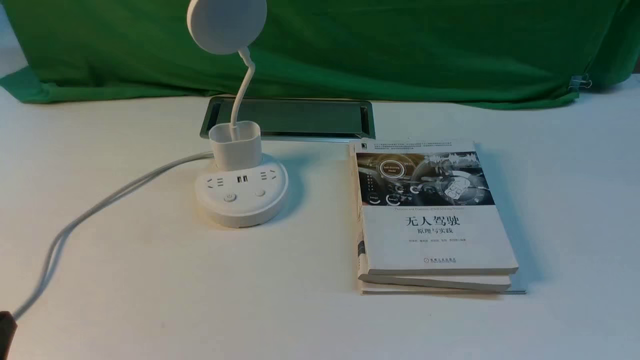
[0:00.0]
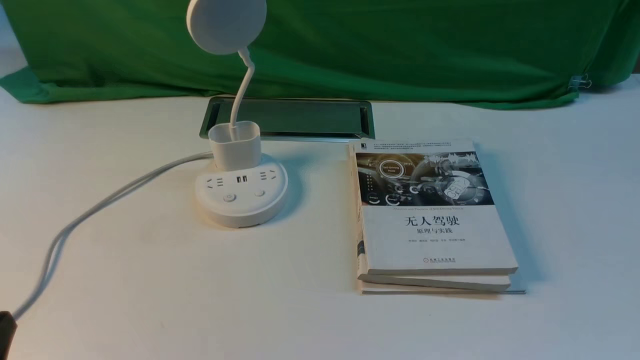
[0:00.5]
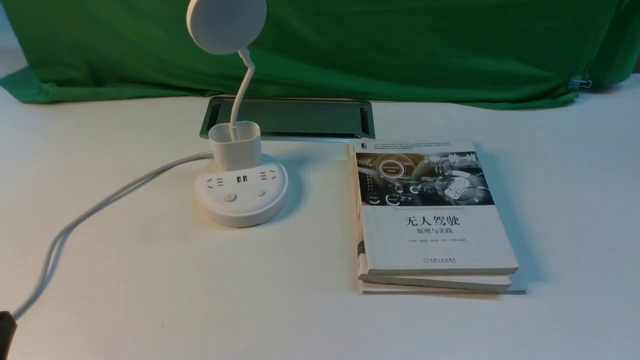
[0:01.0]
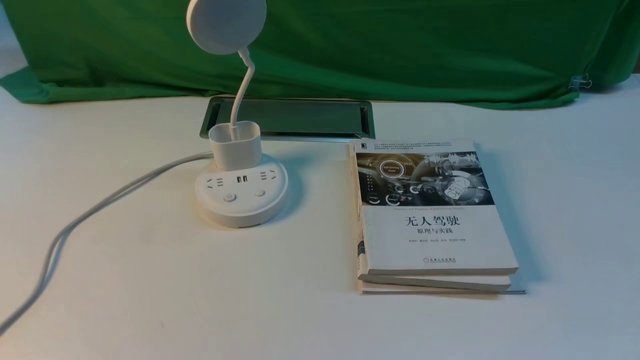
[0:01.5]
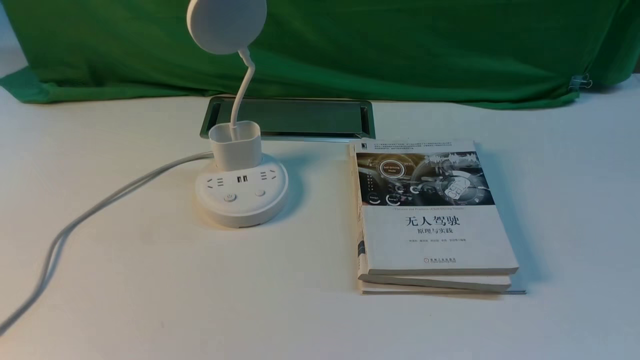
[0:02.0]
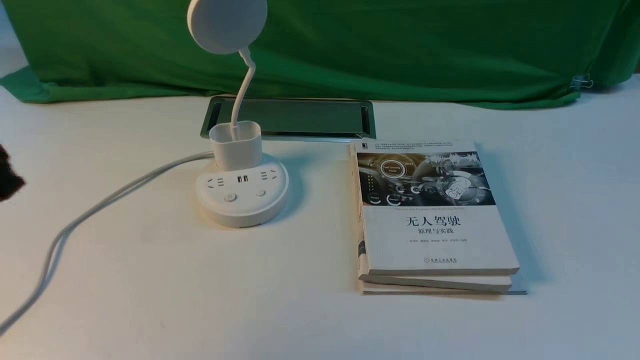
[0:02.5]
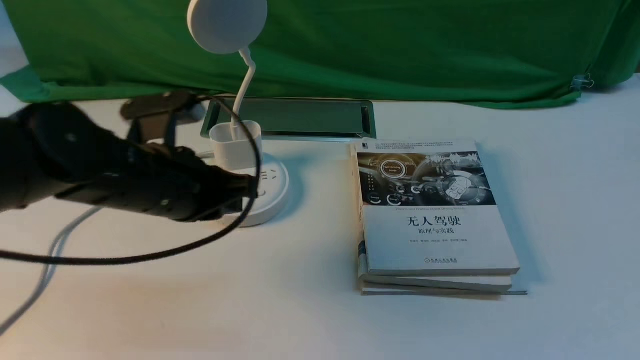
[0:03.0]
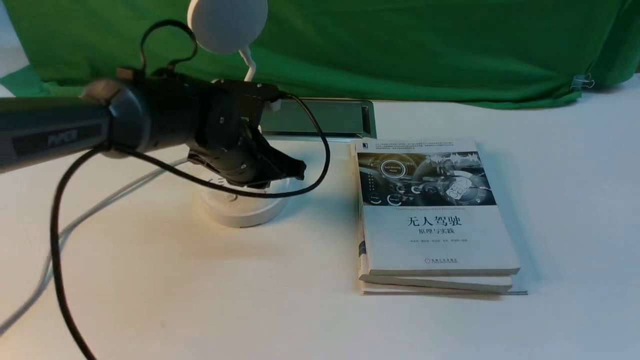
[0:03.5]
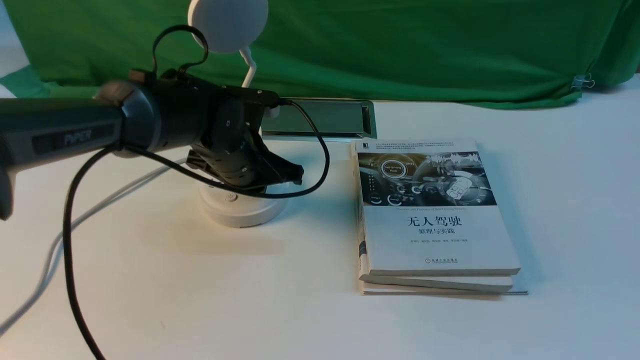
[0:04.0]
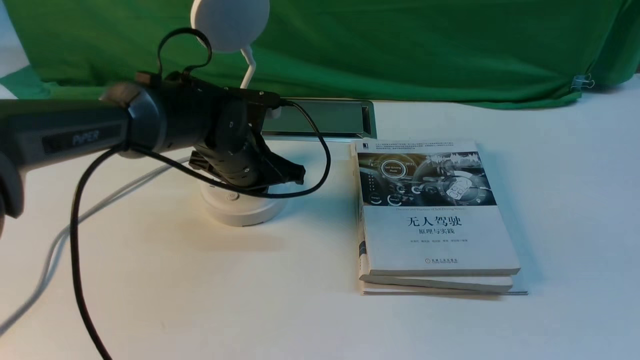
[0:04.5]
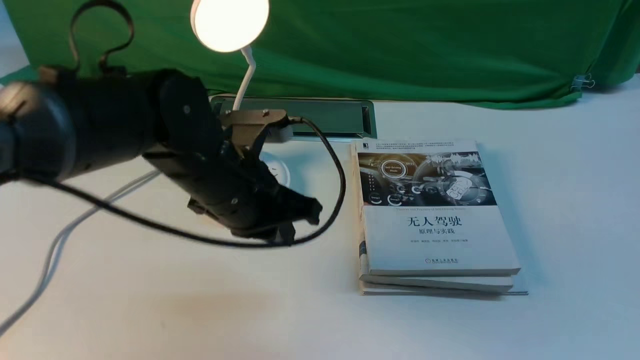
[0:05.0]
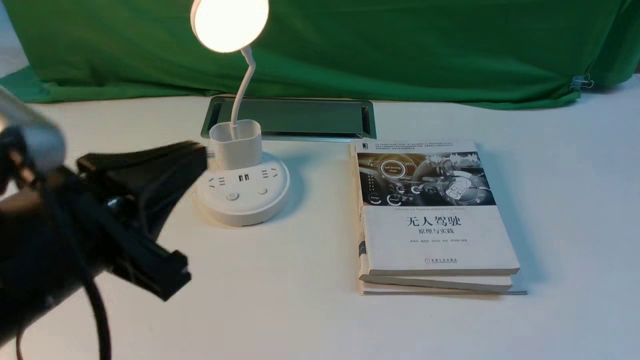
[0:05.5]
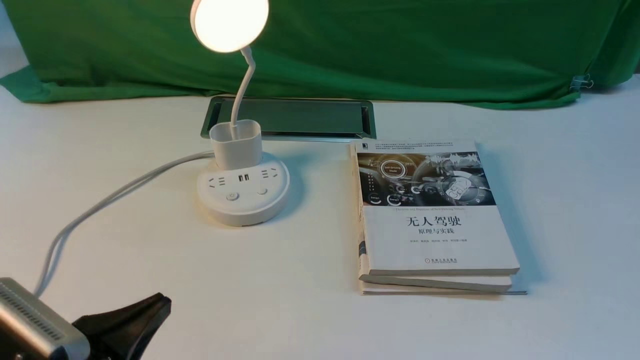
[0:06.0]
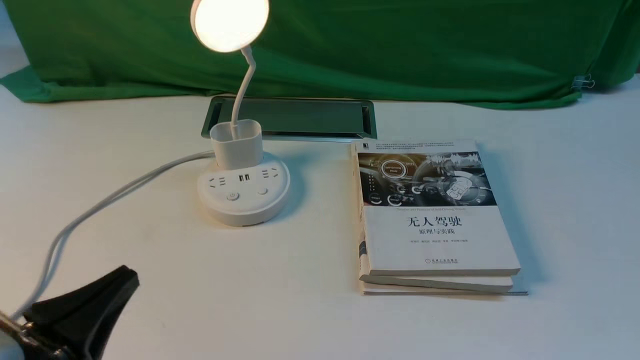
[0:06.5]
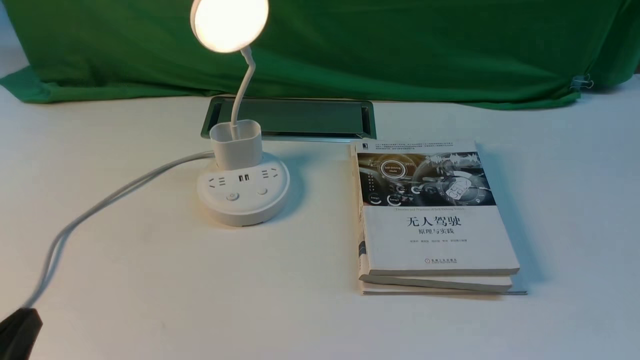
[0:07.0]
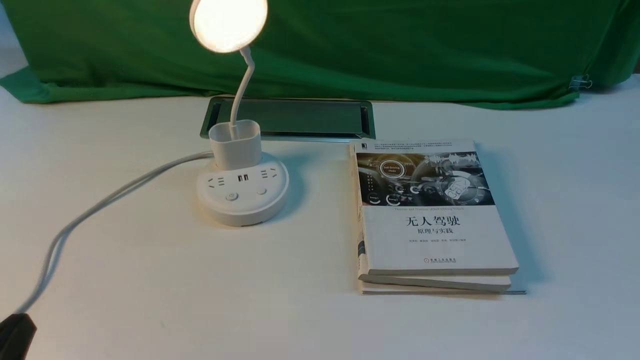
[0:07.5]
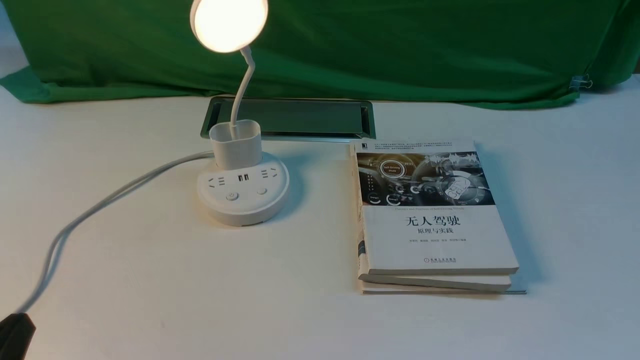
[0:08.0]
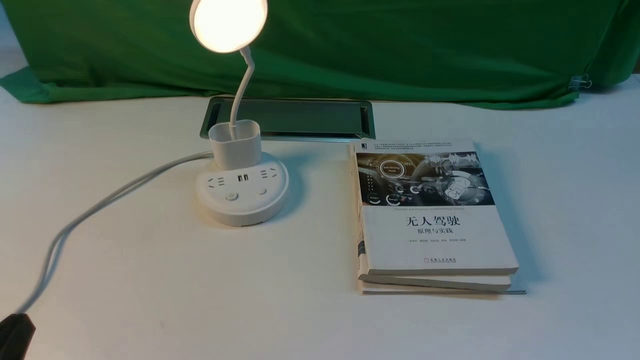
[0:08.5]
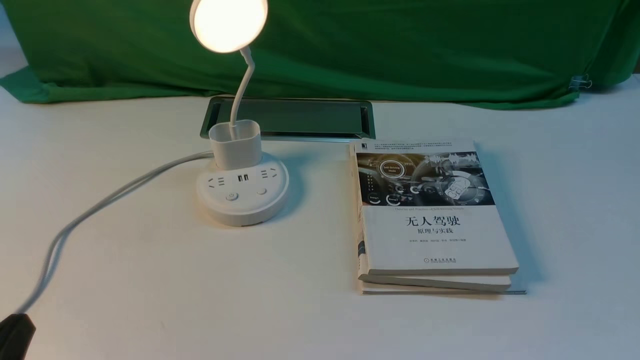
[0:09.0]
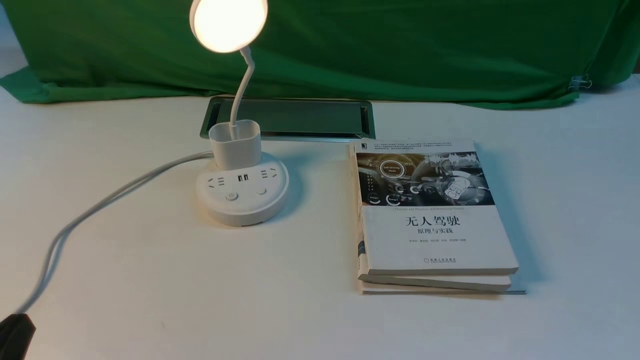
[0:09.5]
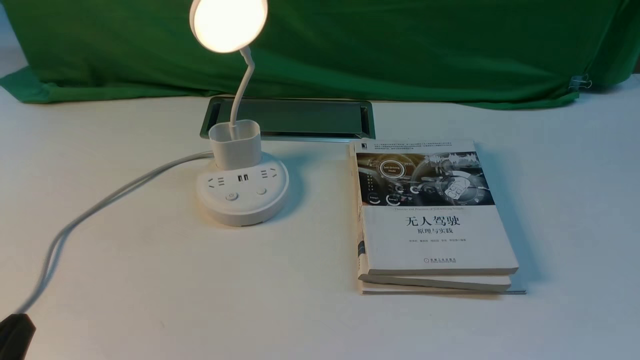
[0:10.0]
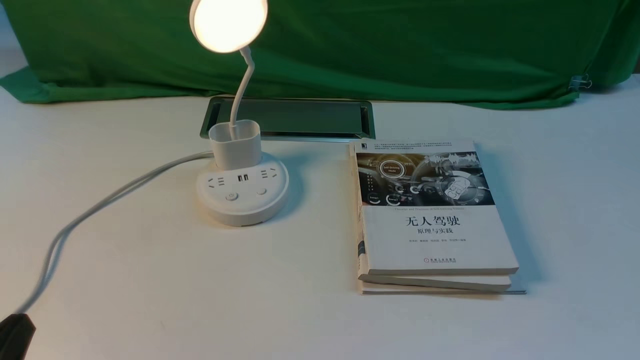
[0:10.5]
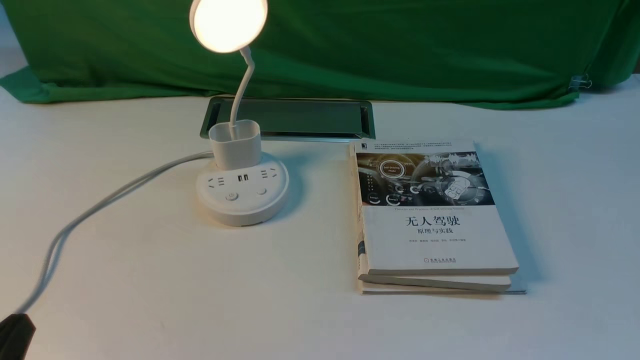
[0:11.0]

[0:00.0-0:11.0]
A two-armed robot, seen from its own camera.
Step, 0:00.0 to 0:05.0: use the left arm to press the button switch on the lamp holder.
0:02.0 to 0:03.5: The left gripper moves forward and to the right, roughly 40 cm.
0:03.5 to 0:05.5: The left gripper goes some 25 cm backward and upward.
0:05.5 to 0:07.5: The left gripper is displaced downward, to the left and backward by roughly 20 cm.
0:07.5 to 0:11.0: Both grippers stay put.
